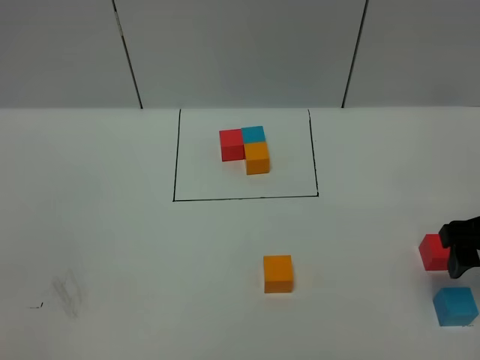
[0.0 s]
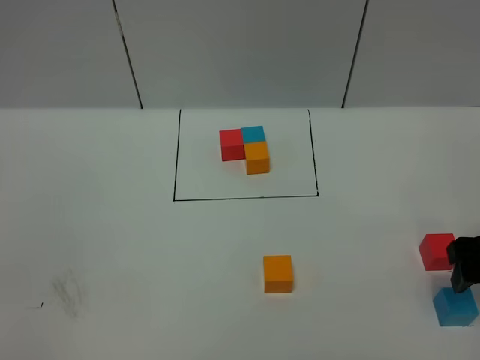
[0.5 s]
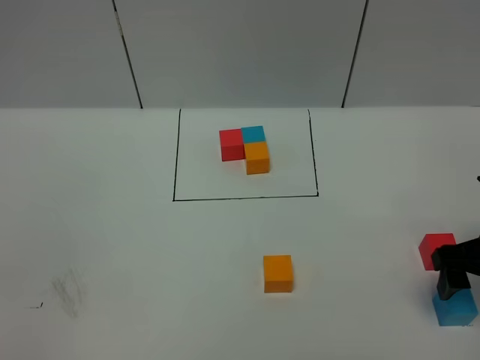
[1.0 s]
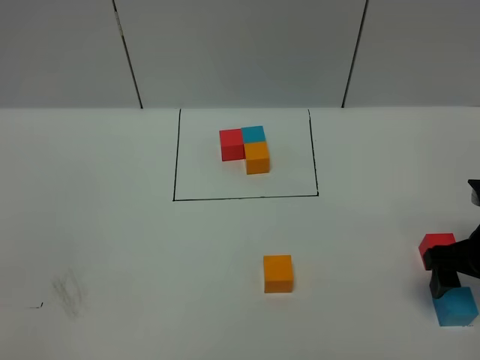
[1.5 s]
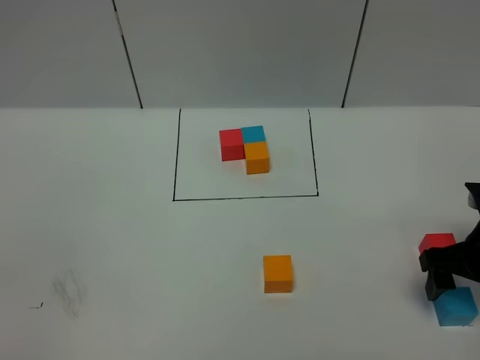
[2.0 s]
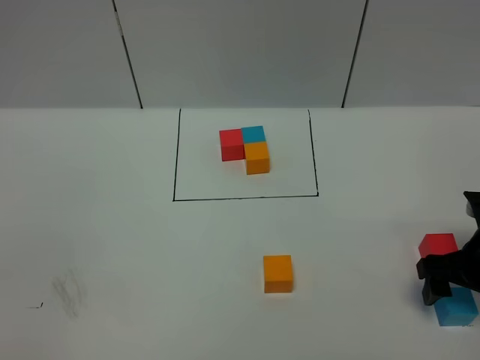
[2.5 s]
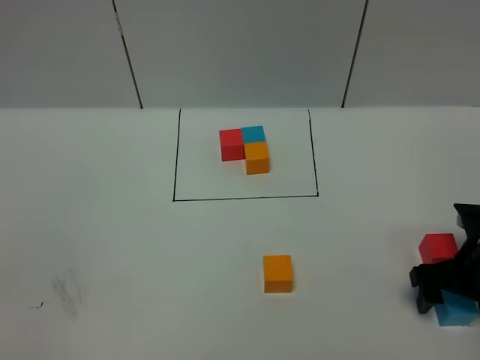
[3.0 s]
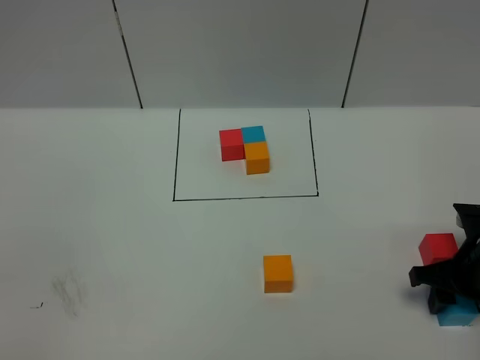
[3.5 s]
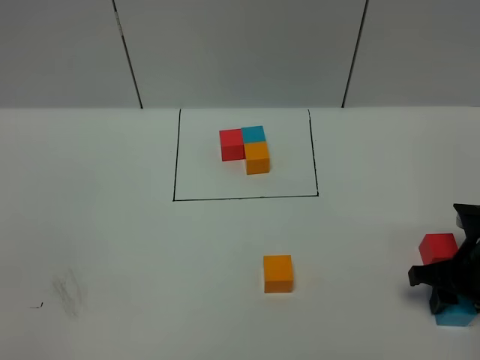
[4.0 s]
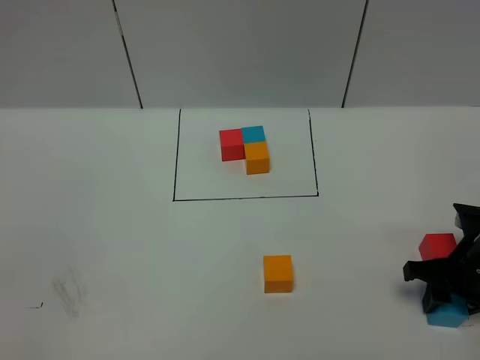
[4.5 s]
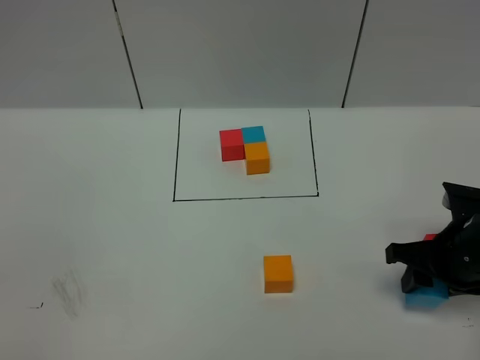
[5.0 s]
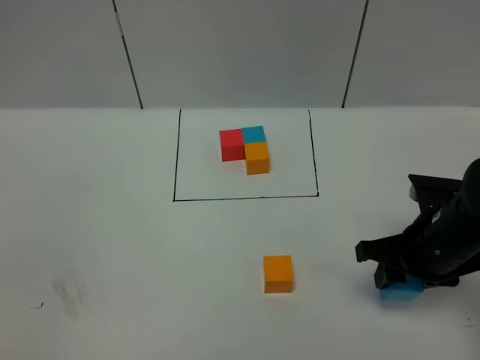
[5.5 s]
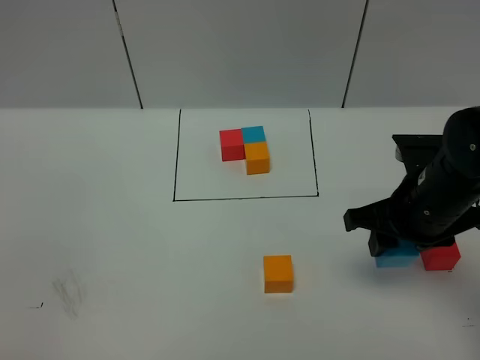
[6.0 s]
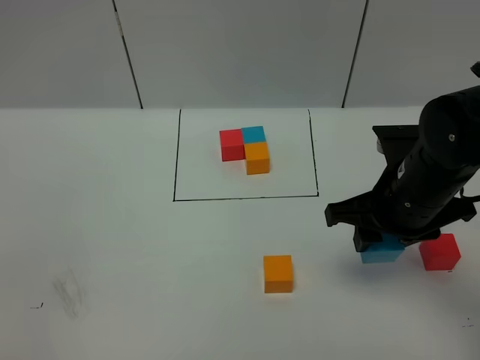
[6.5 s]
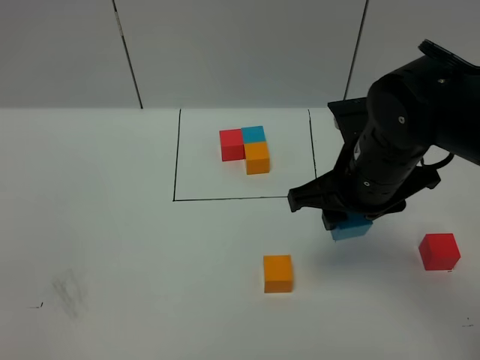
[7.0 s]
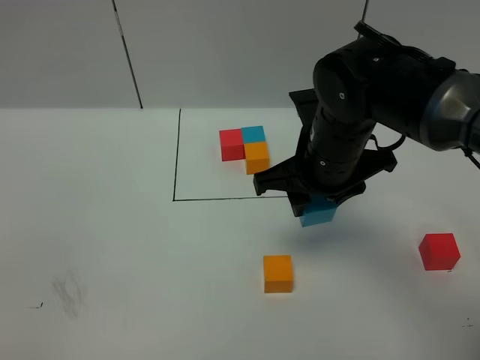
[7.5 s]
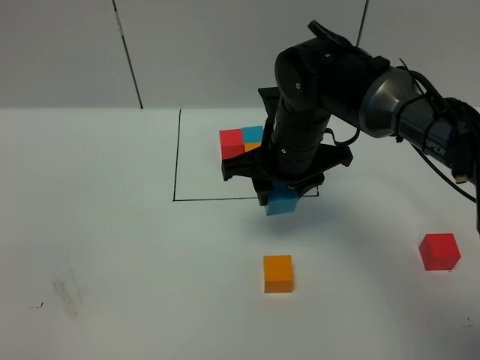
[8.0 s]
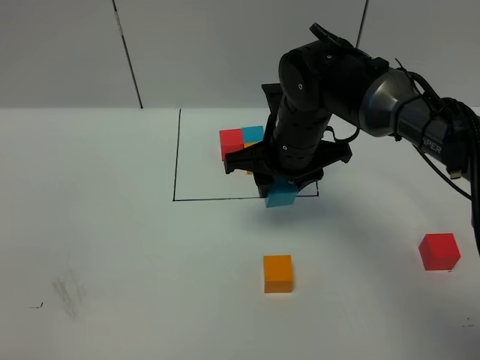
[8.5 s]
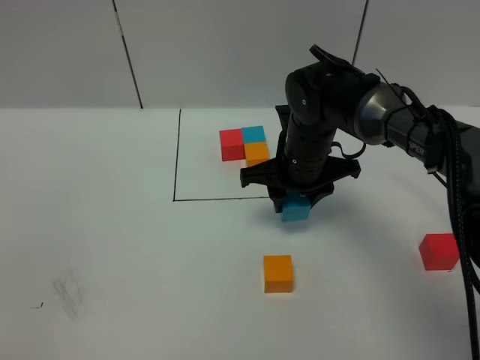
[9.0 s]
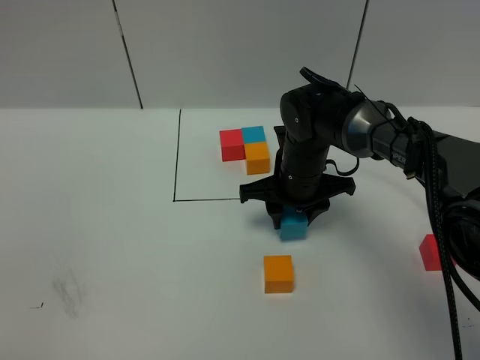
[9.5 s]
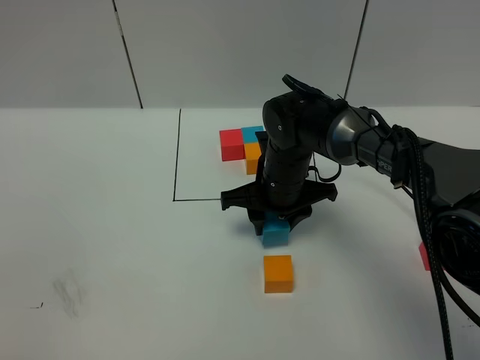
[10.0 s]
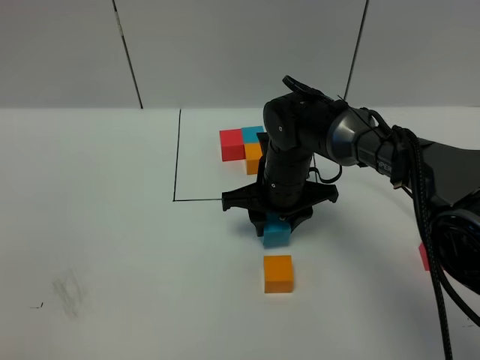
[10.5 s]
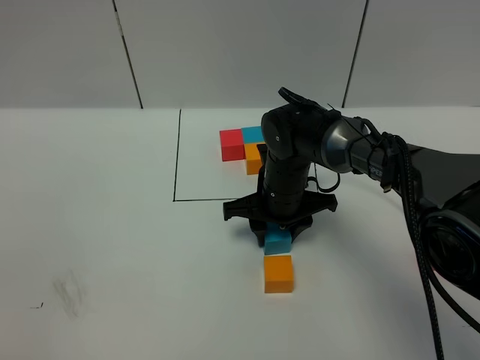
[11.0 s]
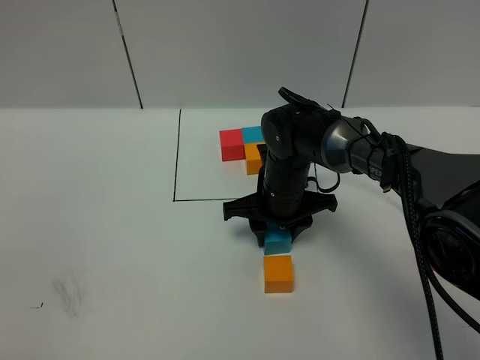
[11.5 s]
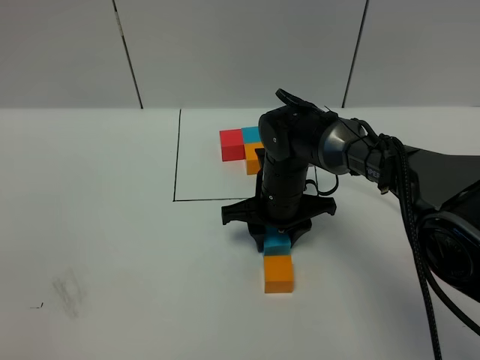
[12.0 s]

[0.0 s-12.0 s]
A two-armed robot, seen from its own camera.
Task of the whole recording: According to the building block template in front, assemble the scattered blocks together.
0.0 to 2.0 s: The right gripper goes approximately 5 cm downward.
2.0 to 4.0 s: The right gripper closes up.
4.0 to 6.0 s: The right gripper is displaced upward and to the left by approximately 15 cm.
6.0 to 8.0 s: The right gripper goes roughly 15 cm to the left and forward.
8.0 to 10.0 s: The right gripper moves downward, about 10 cm.
10.0 to 12.0 s: The grippers make only small movements.

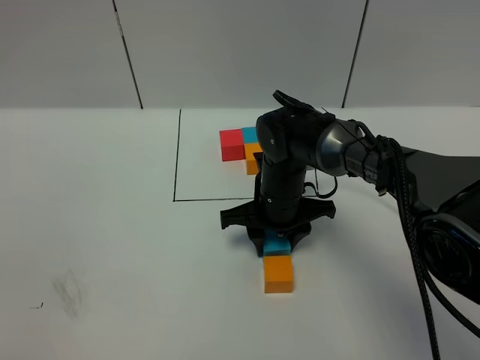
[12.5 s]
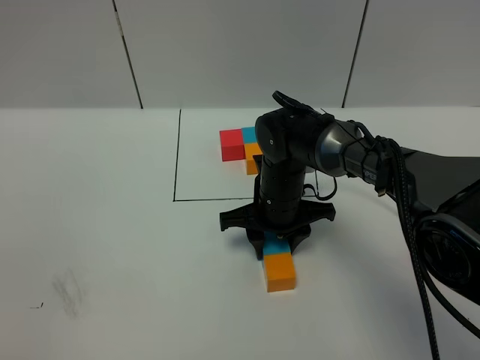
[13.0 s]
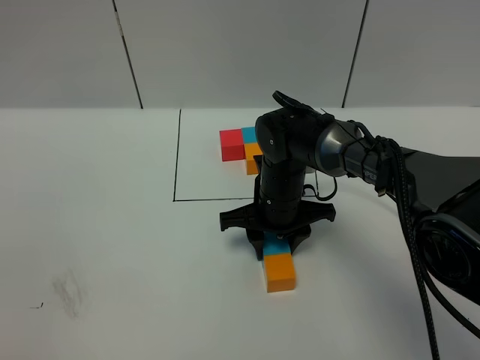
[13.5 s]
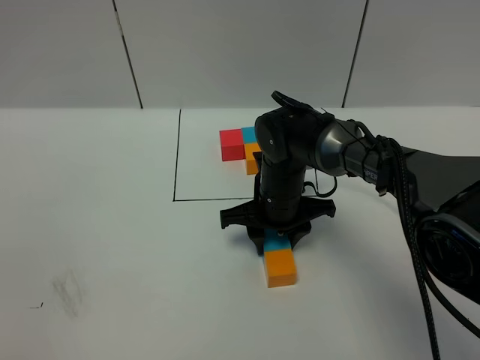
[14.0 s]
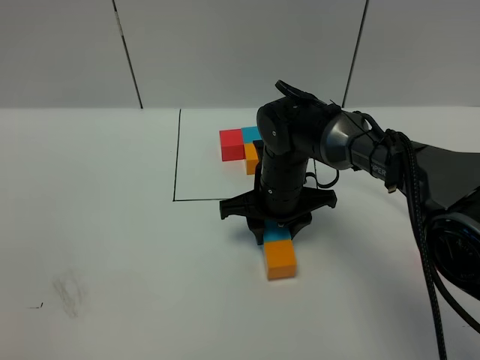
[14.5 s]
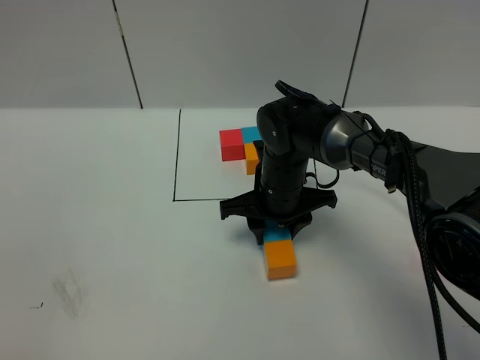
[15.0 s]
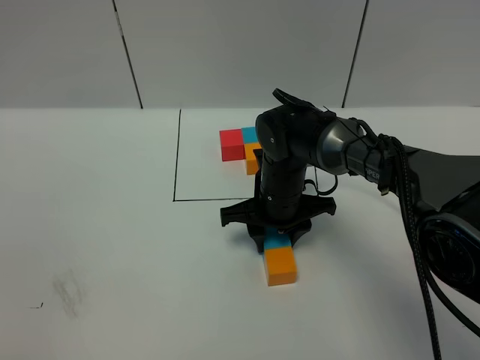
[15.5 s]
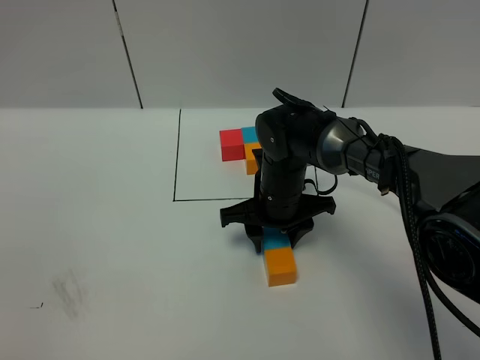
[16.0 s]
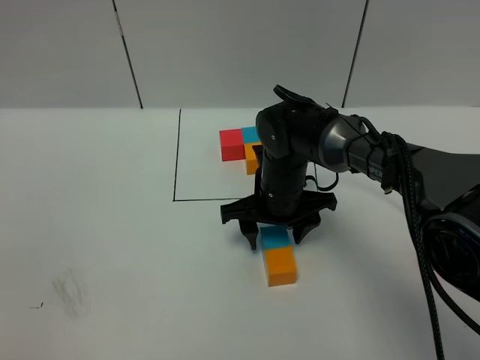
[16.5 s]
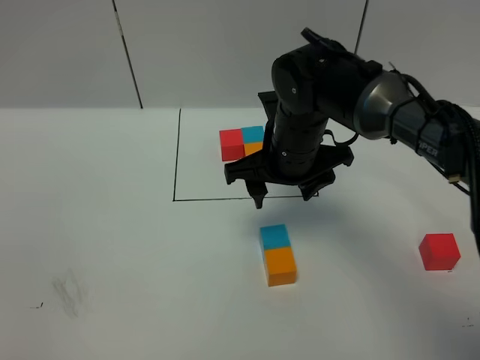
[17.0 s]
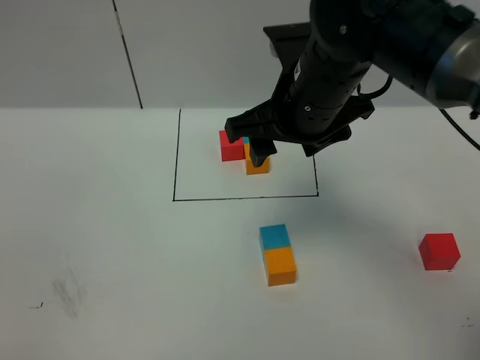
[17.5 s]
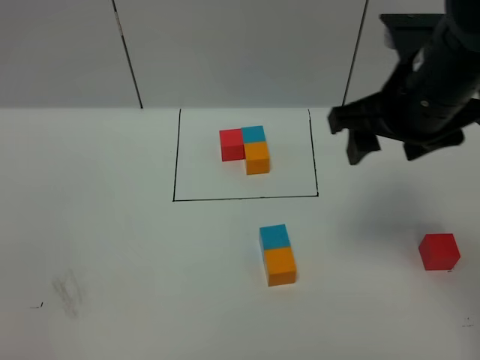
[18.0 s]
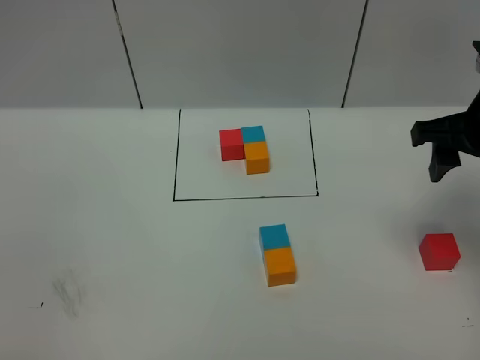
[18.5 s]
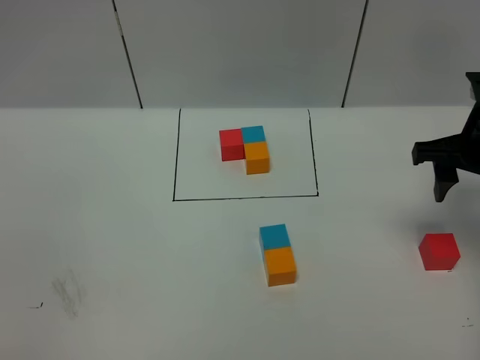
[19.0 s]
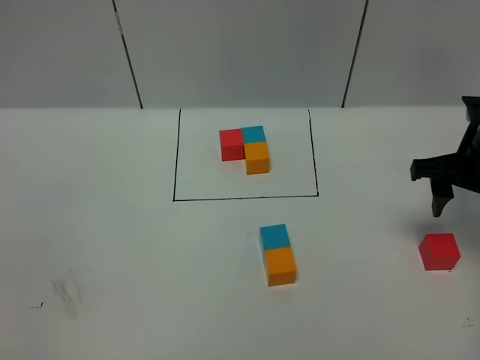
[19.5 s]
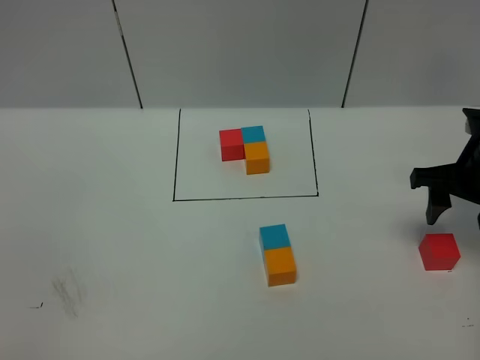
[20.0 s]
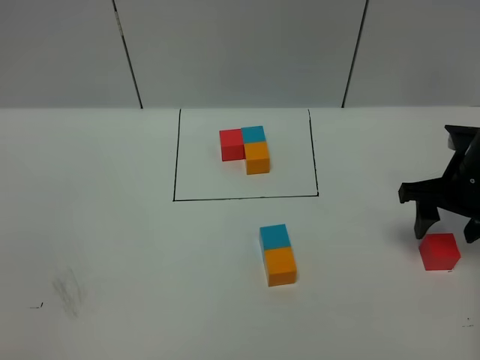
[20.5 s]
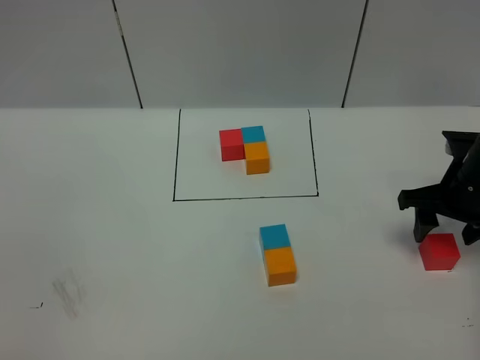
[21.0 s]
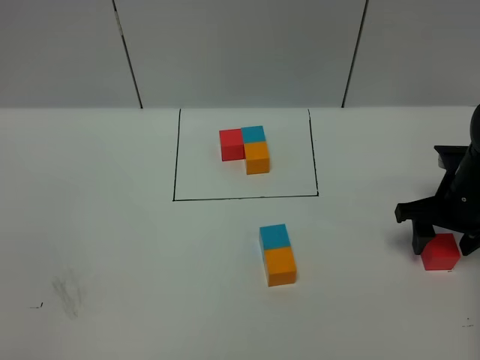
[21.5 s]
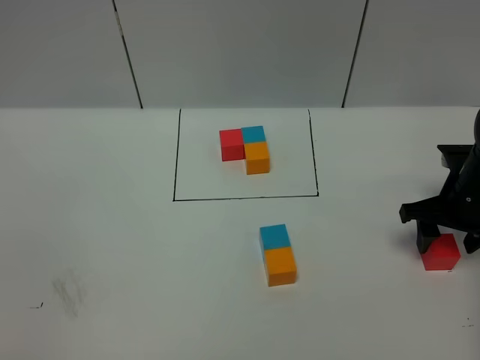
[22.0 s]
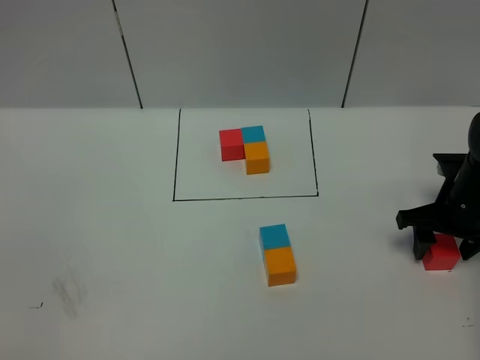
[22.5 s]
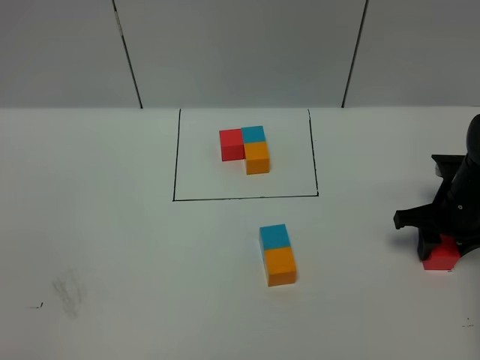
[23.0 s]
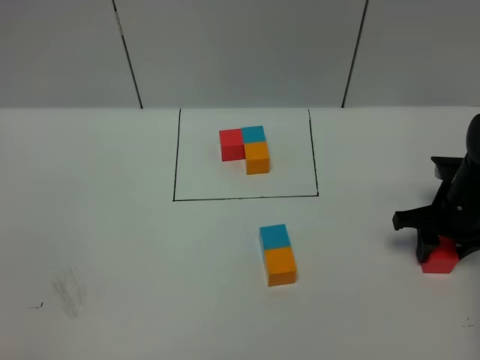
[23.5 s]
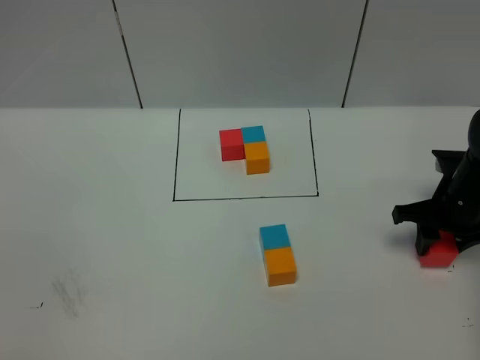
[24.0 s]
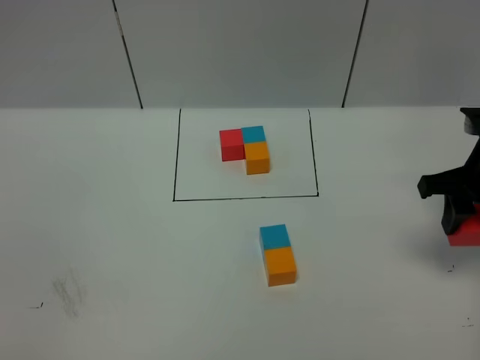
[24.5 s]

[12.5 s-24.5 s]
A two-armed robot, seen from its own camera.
Task of the whole recording: According to the building block template in front, assemble the scattered blocks together.
Step, 12.5 to 16.0 s: Put the blue cube on the behind of the orange cube.
12.5 to 14.5 s: The grippers stay close to where they were, moving slightly.
14.5 to 16.5 s: The right gripper opens.
16.5 to 18.5 s: The right gripper travels to the right and upward by approximately 25 cm.
18.5 to 20.5 s: The right gripper shifts about 15 cm downward.
20.5 to 22.5 s: The right gripper goes about 5 cm downward.
22.5 to 24.5 s: The right gripper moves upward, approximately 15 cm, and closes up.

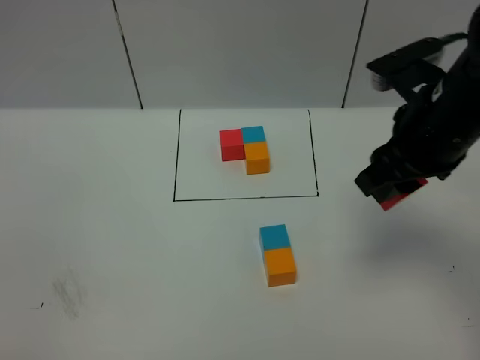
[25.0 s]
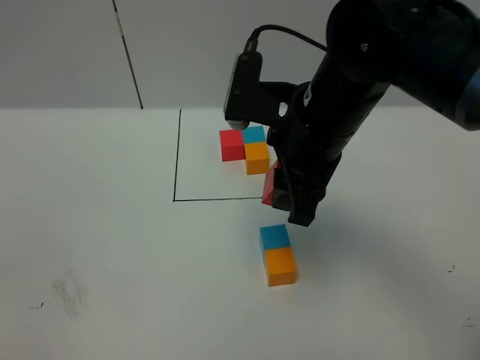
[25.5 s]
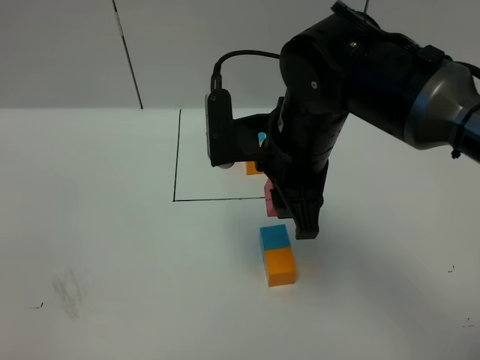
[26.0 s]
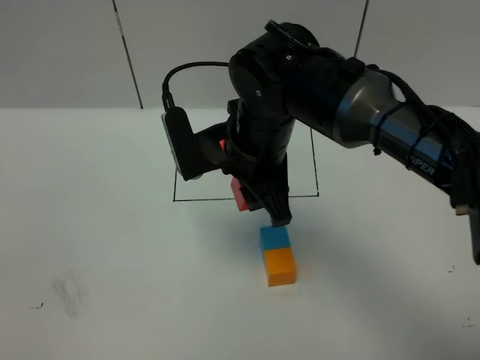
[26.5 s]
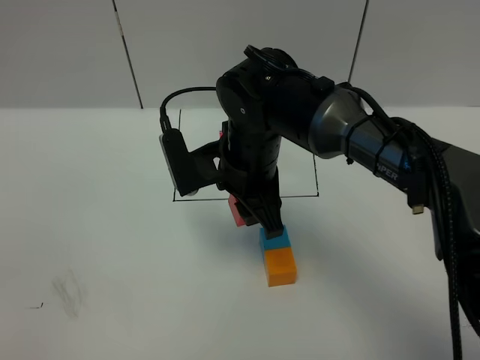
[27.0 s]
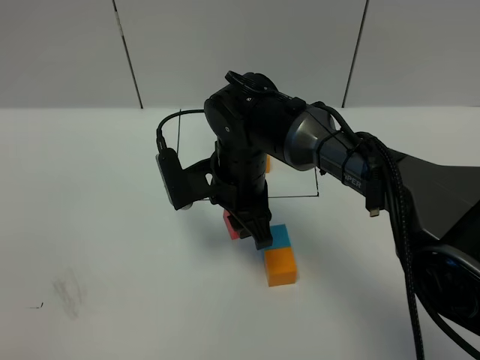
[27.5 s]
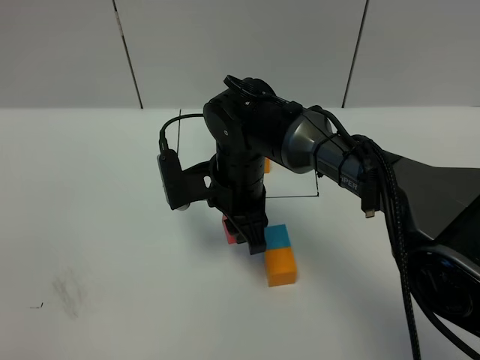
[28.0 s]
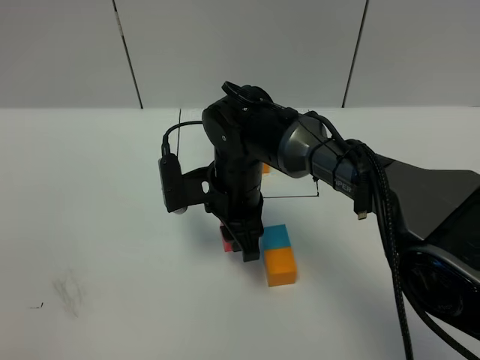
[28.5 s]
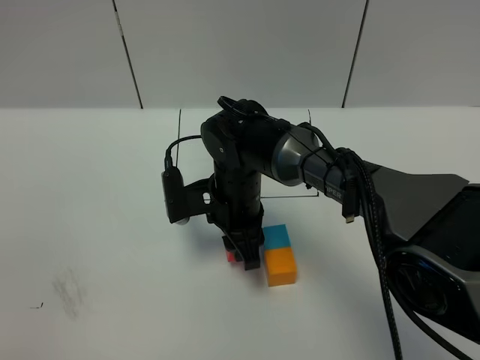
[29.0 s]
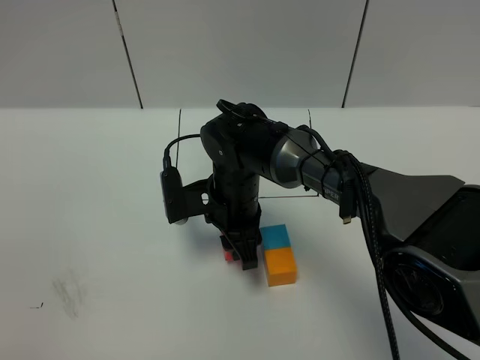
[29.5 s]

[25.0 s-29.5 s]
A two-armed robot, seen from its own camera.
Task of the whole recording: According to the building block template in front, assemble the scattered blocks together.
25.0 to 27.0 s: The right gripper moves to the left and downward, roughly 20 cm.
27.0 to 29.5 s: The right gripper moves downward, roughly 10 cm.
